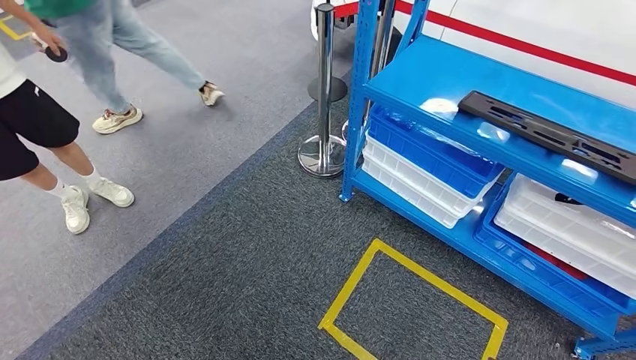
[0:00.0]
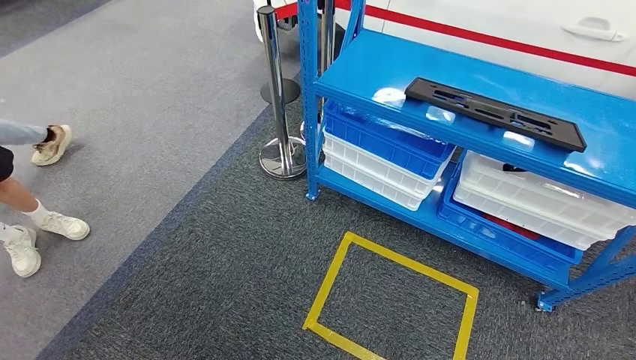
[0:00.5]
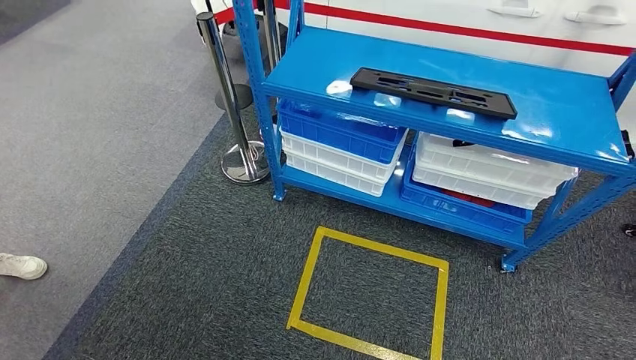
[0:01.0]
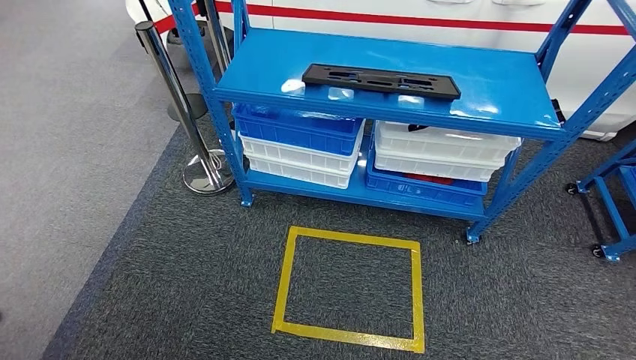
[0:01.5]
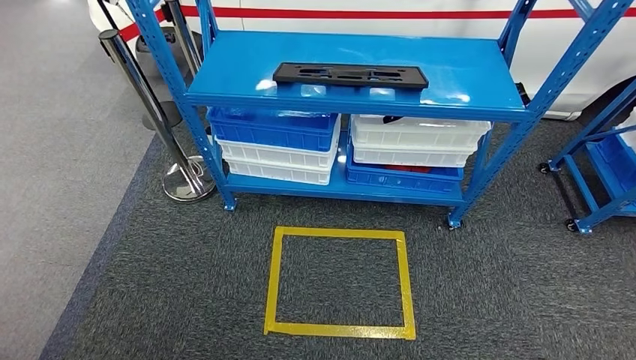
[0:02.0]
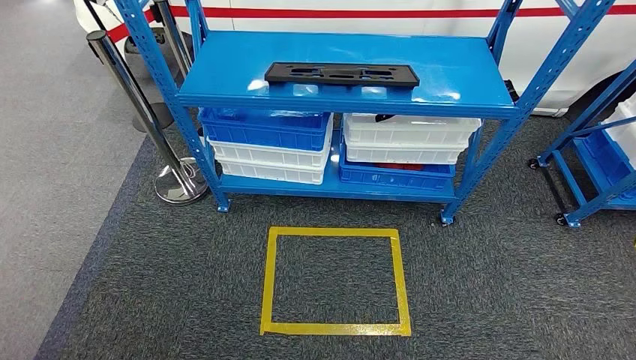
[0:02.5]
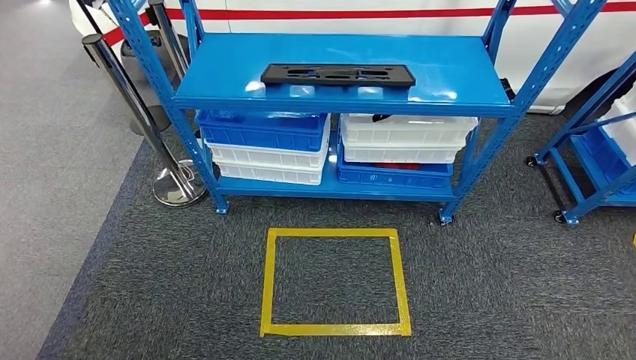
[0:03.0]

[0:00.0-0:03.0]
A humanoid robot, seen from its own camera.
Step, 0:00.0 to 0:03.0: Move to the initial position of the shelf.
